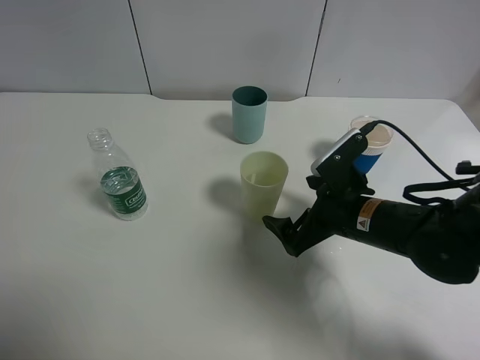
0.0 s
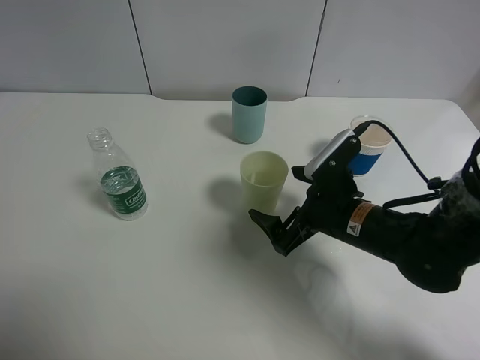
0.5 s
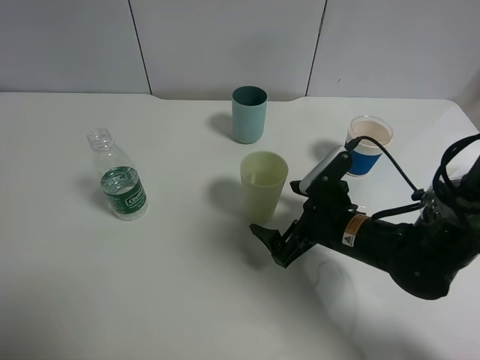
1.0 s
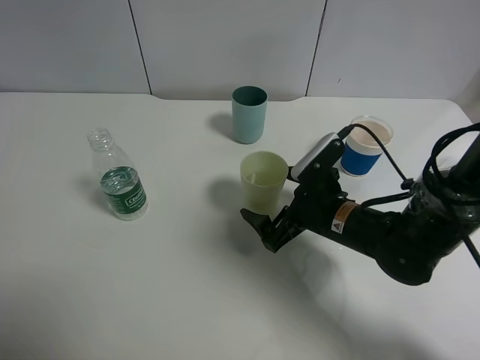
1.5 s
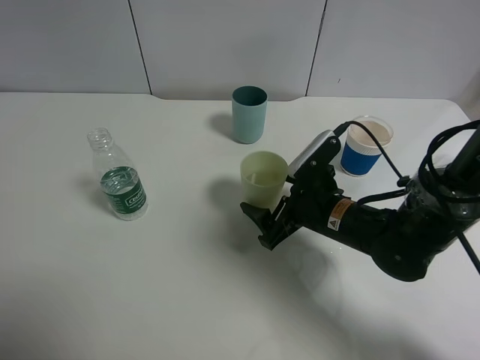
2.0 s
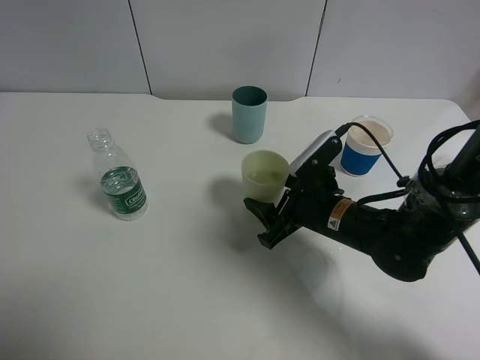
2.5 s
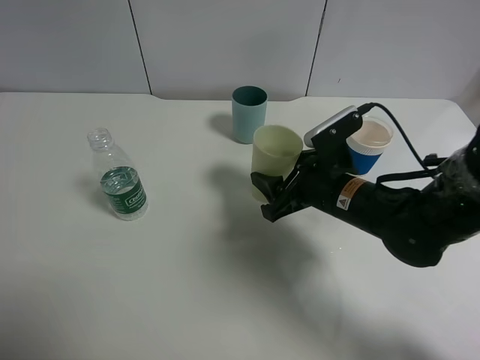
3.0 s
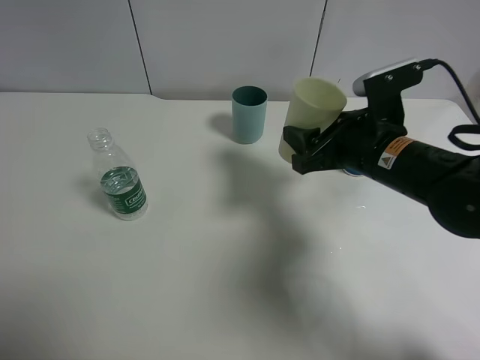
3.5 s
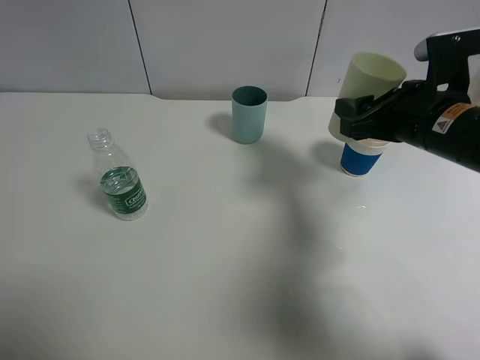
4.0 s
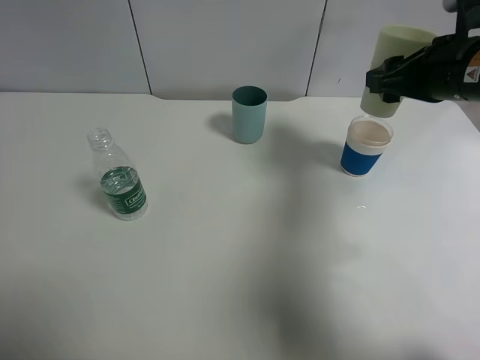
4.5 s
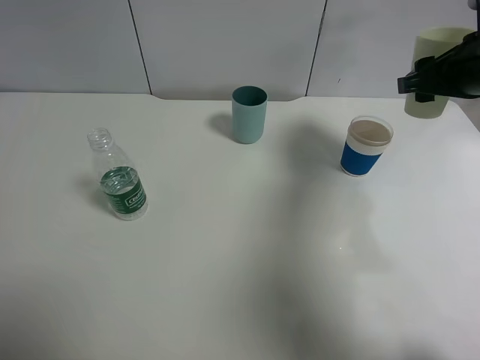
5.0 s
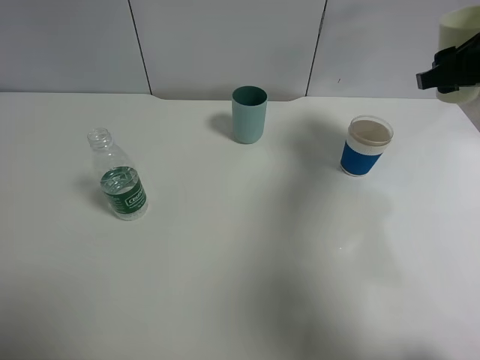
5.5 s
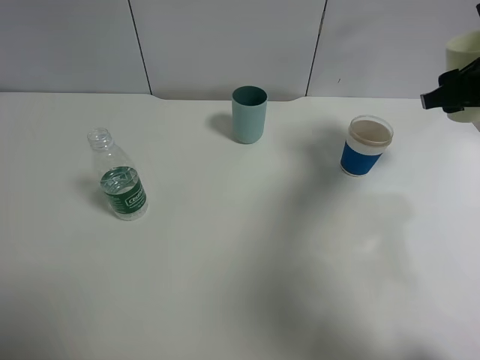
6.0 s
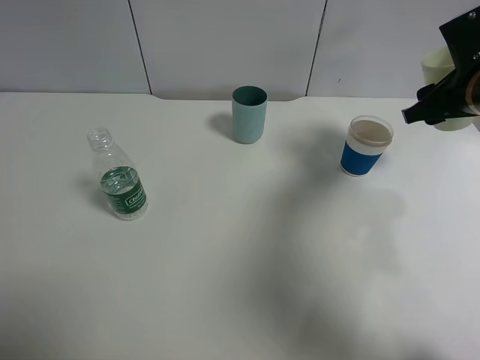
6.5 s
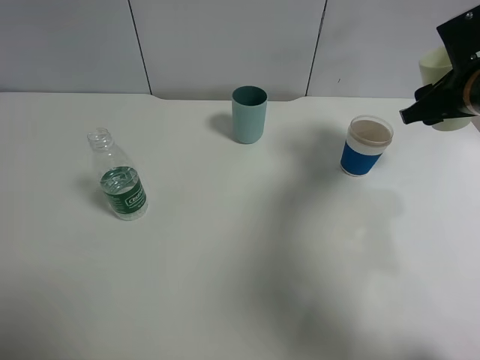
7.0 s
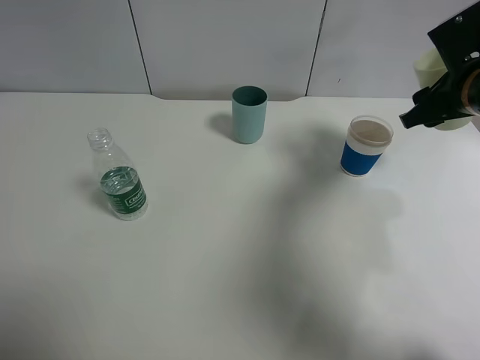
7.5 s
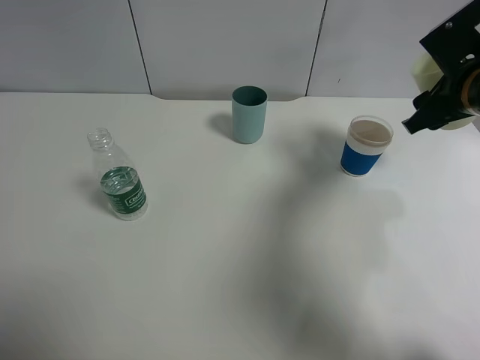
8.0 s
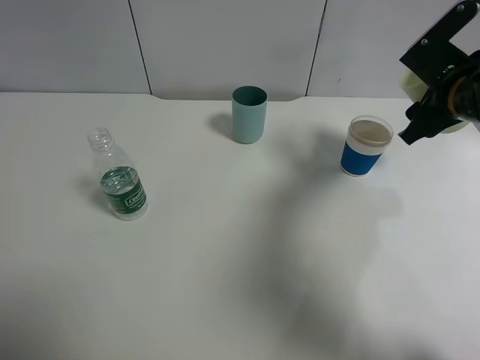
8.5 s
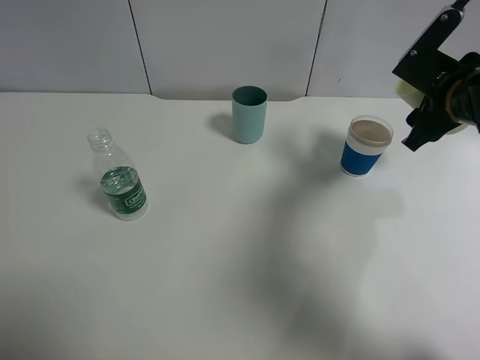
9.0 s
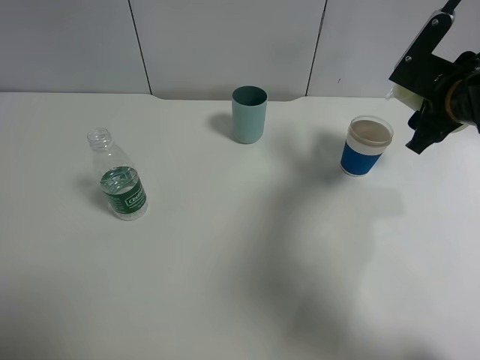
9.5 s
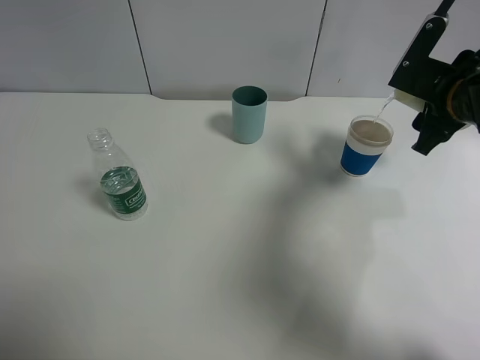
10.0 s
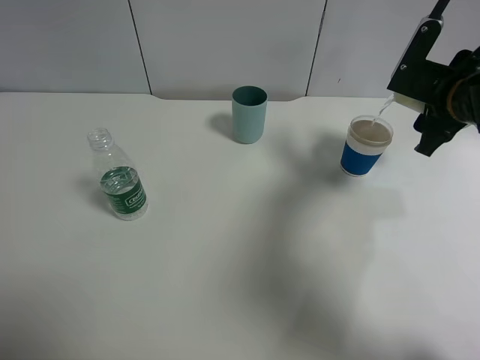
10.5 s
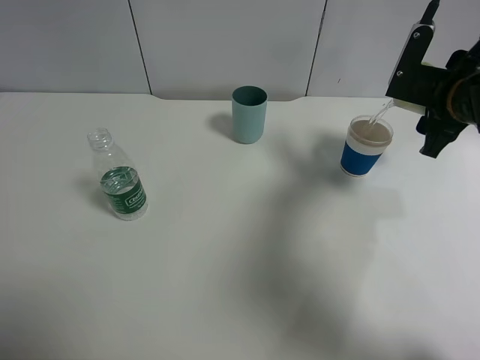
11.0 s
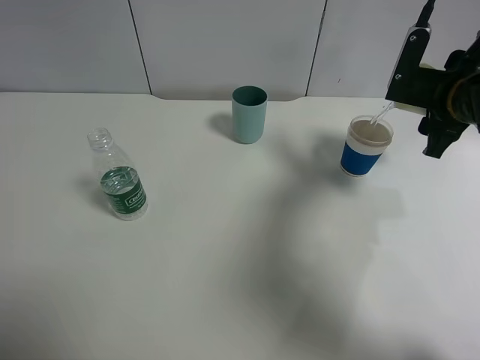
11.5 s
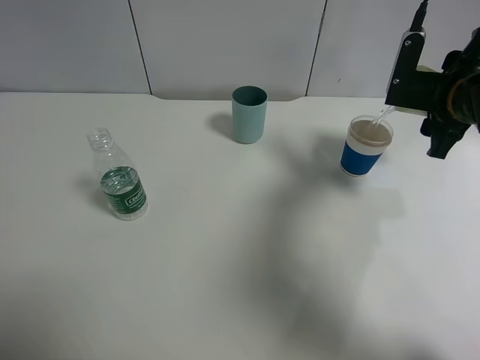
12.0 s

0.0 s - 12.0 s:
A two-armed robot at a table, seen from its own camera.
Task of the whole recording: use a clamp to hold the bottle of the drink, pour the beverage into a random cup, then clamp the cup containing the drink and pour the drink into another random cup.
Step, 0.0 s - 3.0 s: Pick up the green plastic cup with right gripper.
0.0 s - 2.0 s: The grippers move only a little.
2.0 s - 4.0 s: The right gripper travels upward and to the right by about 15 cm, and closes.
4.0 s - 6.0 s: The right gripper is displaced to the right by some 10 cm.
6.0 s - 8.0 s: The grippers make only small movements.
10.0 s - 12.0 s: The grippers stay close to where they were, moving slightly.

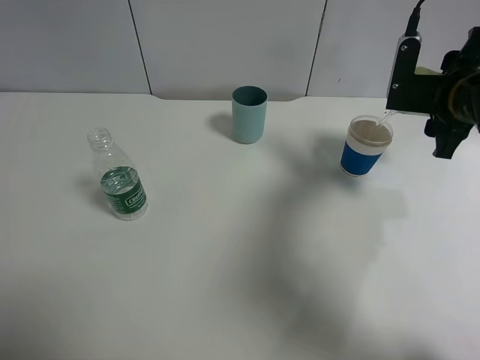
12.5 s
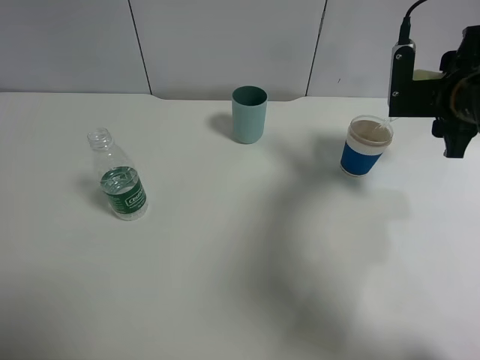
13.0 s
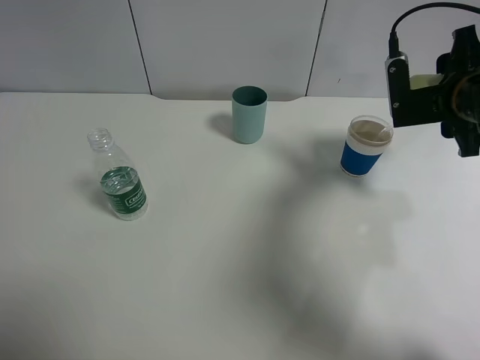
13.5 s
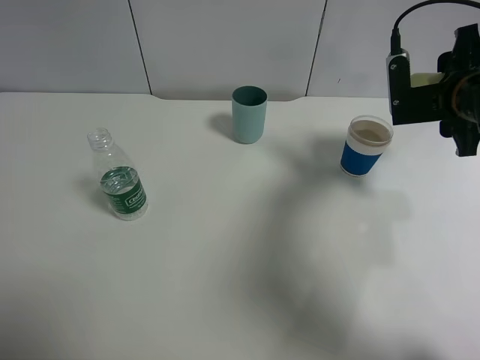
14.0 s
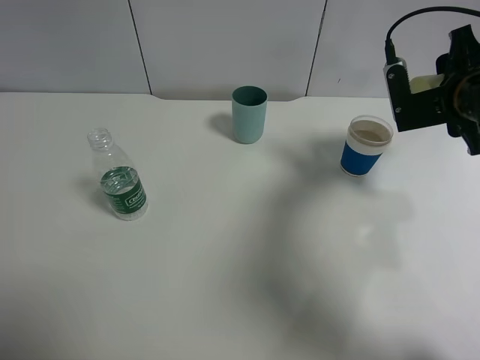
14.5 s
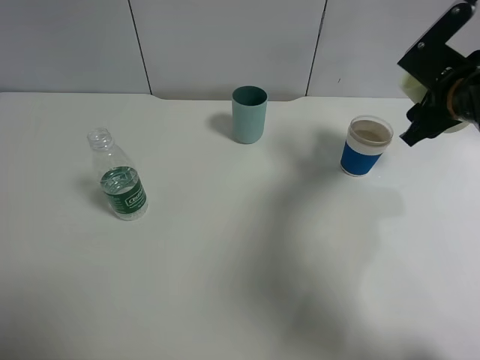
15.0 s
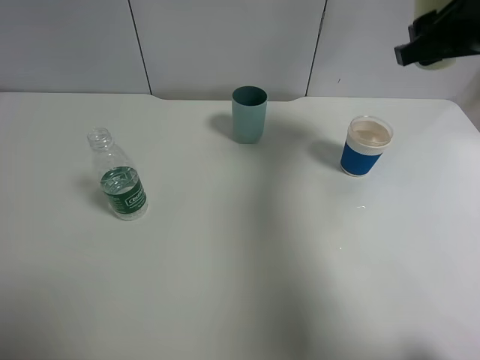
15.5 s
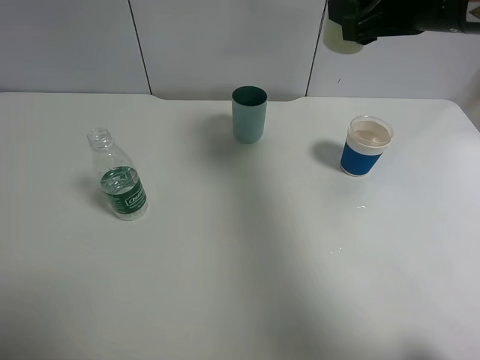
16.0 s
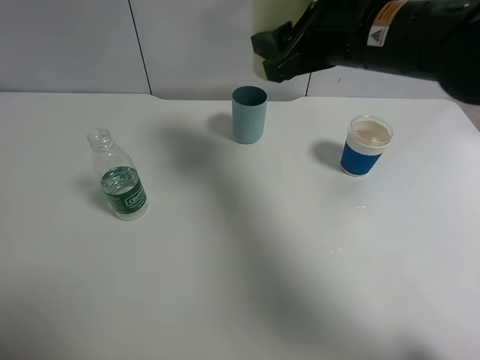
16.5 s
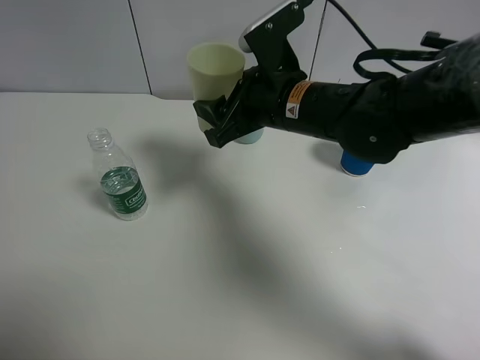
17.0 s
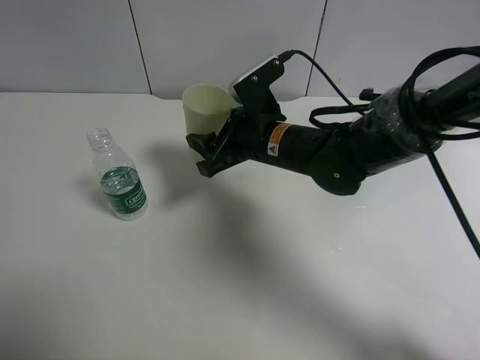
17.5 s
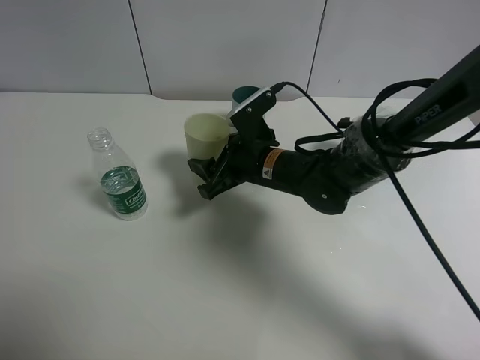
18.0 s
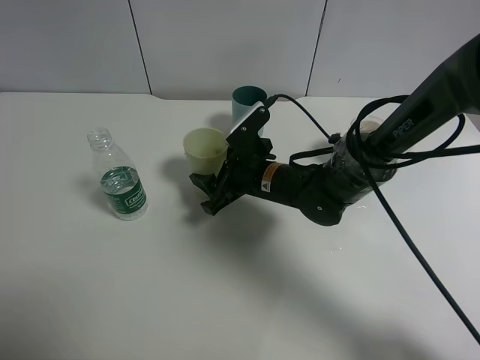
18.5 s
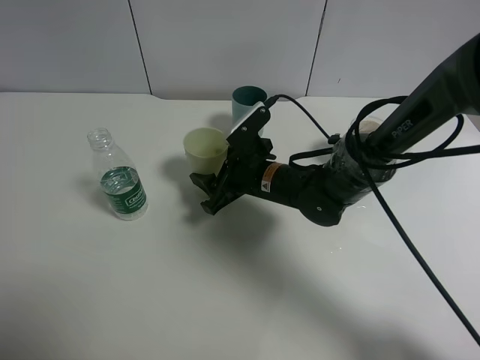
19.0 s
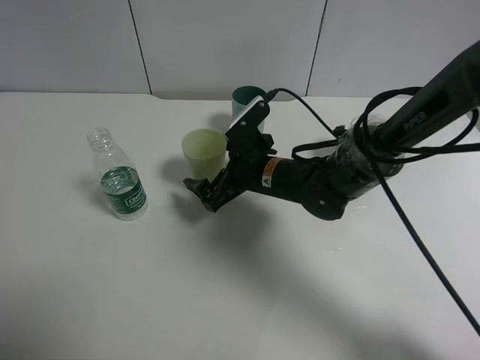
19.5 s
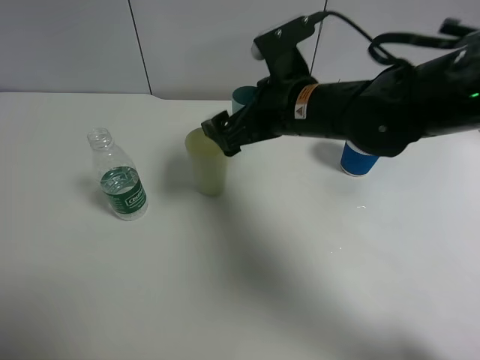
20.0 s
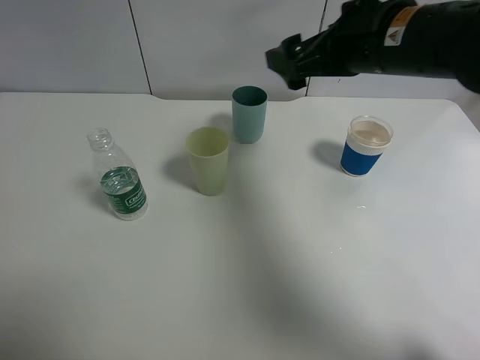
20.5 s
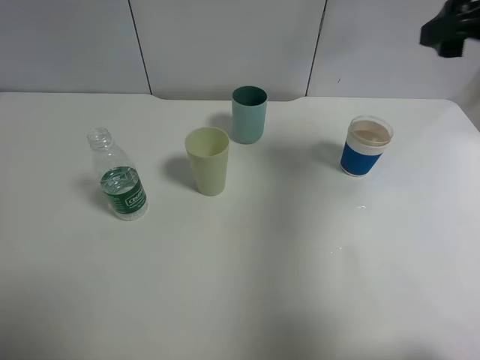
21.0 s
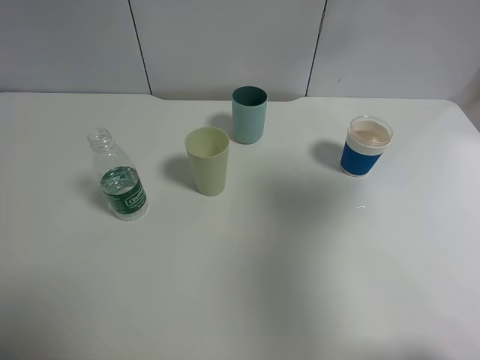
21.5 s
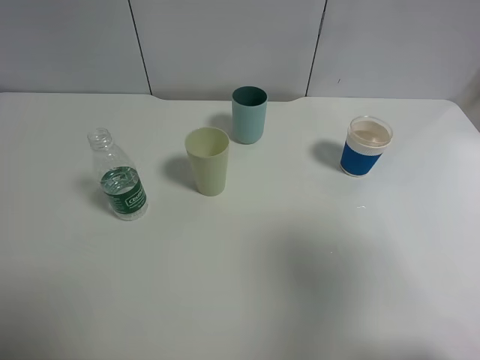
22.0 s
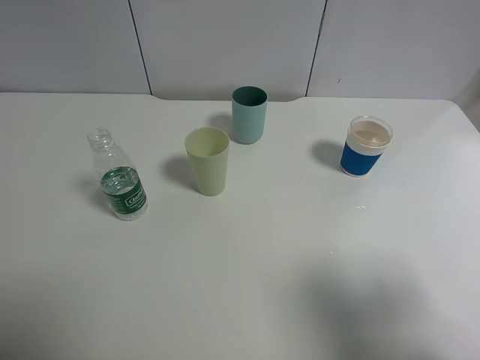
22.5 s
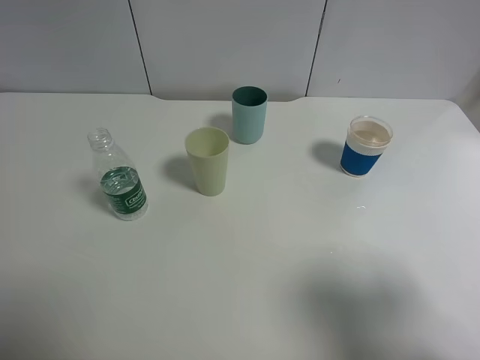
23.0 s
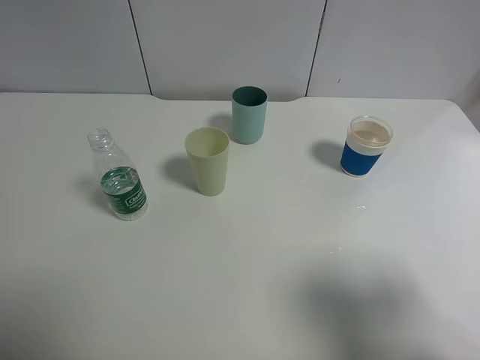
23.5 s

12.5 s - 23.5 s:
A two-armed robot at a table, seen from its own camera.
Task of the whole recording: use a clamp to hold the bottle of the drink, pour the beverage into a random cup, then clamp the cup containing the drink and pour the drink into another random cup.
Step, 12.5 s - 14.5 s: Pour water into the paper cup with right gripper.
Step, 15.0 s - 19.5 s: Place the green plastic cup on the table with right gripper.
14.5 s - 16.0 s: The right gripper heads upward and to the left, covering about 15 cm.
16.0 s - 18.0 s: The right gripper shifts roughly 25 cm downward and to the left.
18.0 s - 20.0 s: The right gripper goes roughly 5 cm upward, and opens its fingers.
20.0 s - 21.5 s: The right gripper travels to the right, upward and backward by approximately 35 cm.
21.5 s - 23.5 s: The right gripper shifts approximately 20 cm backward and downward.

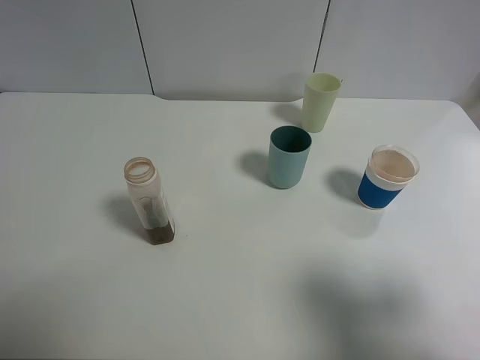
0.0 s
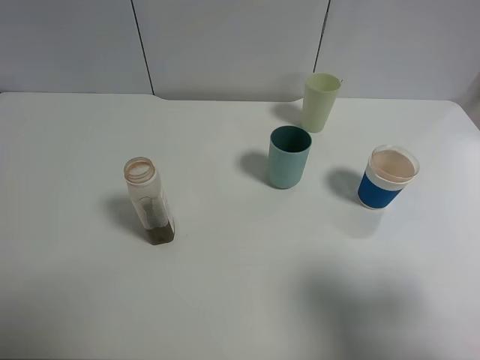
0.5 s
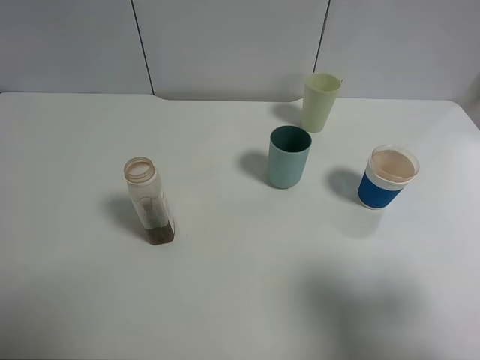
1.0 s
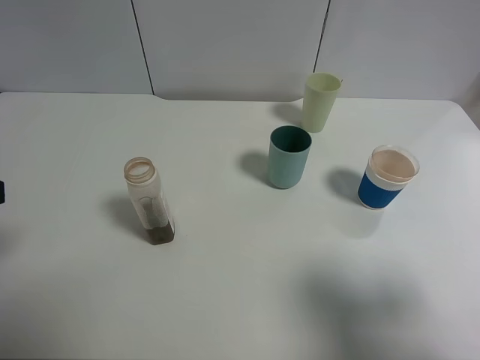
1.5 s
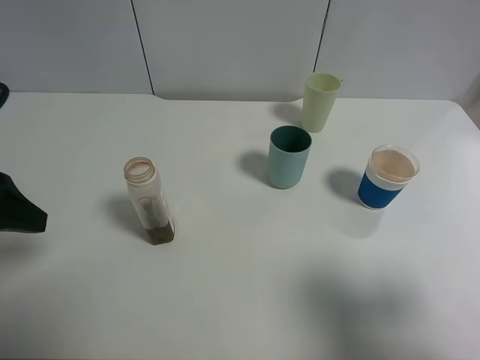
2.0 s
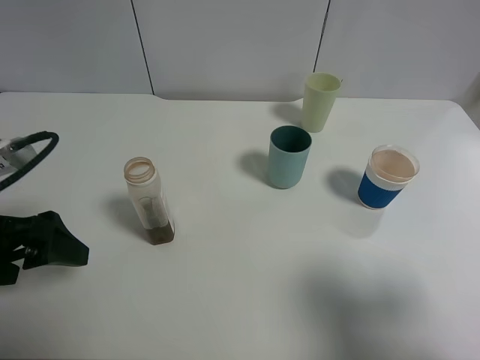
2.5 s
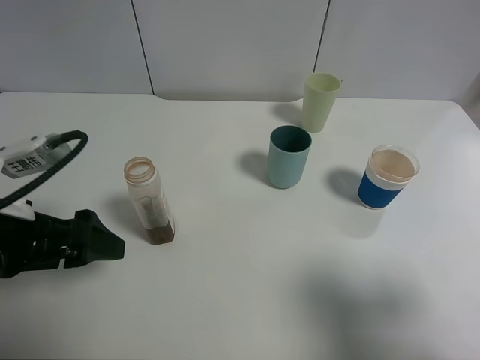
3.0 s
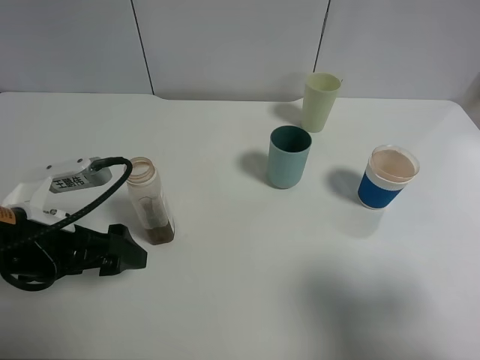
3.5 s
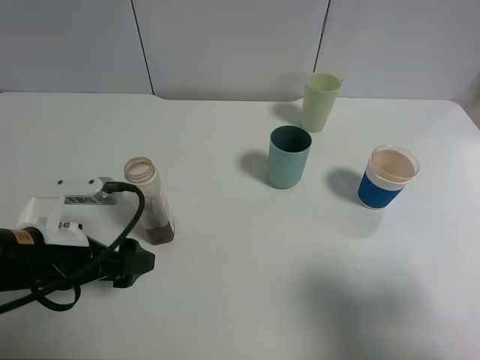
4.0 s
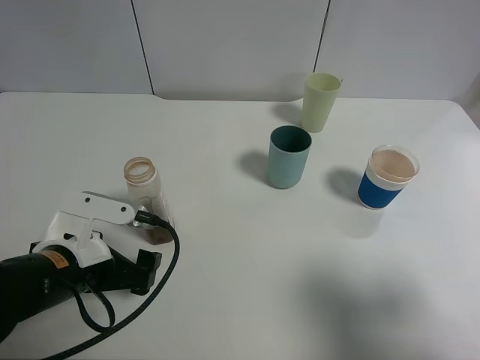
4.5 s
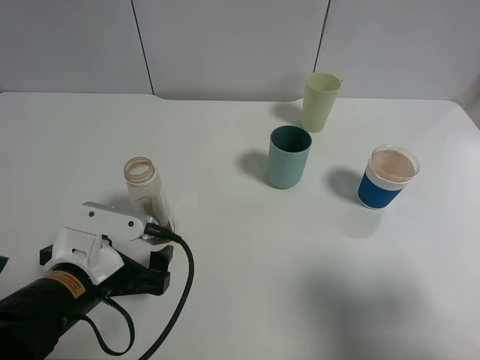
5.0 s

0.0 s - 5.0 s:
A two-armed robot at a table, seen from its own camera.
Task of the whole recording: use a clamp to hold the bottle of the drink, pour the beverage into a random cup, then clamp the cup containing the drink and pour the drink into another random cup.
0.0 s - 2.5 s: The left gripper goes approximately 15 cm forward and downward.
2.5 s - 5.0 s: The left gripper heads downward and to the right, covering some 15 cm.
